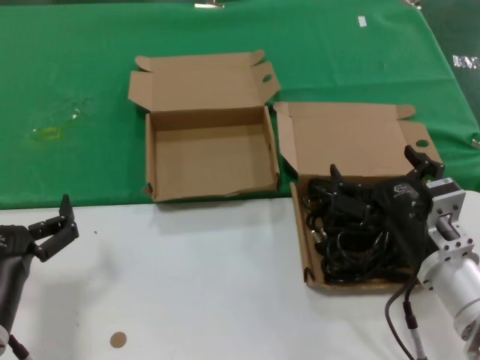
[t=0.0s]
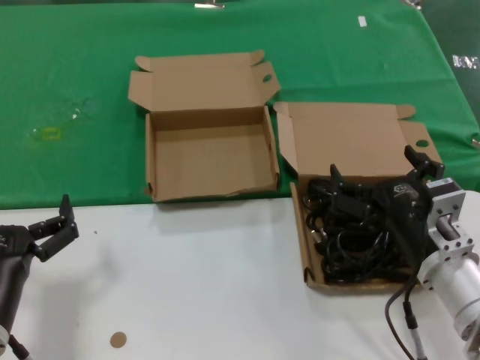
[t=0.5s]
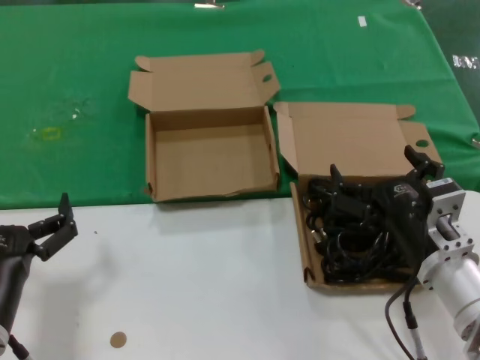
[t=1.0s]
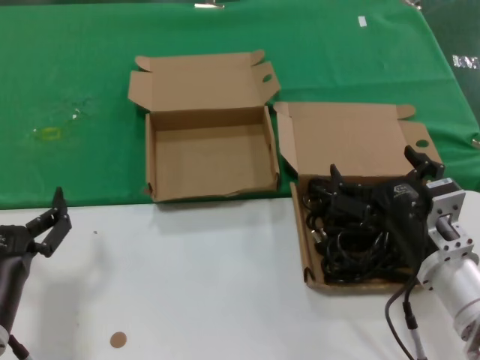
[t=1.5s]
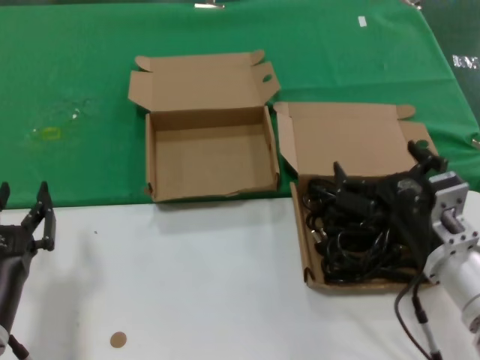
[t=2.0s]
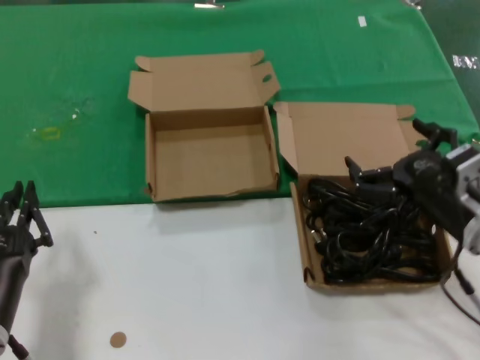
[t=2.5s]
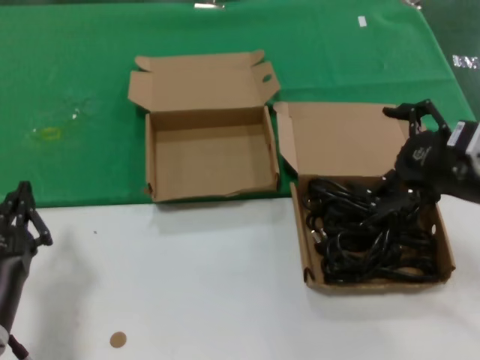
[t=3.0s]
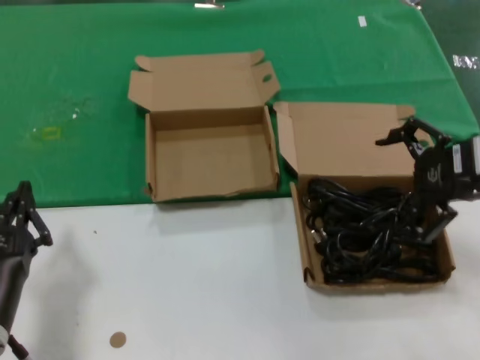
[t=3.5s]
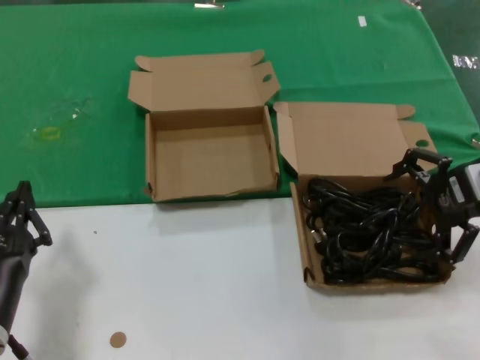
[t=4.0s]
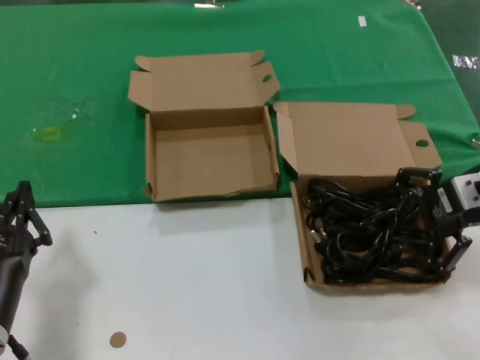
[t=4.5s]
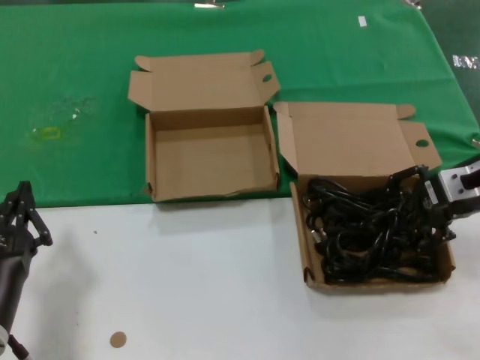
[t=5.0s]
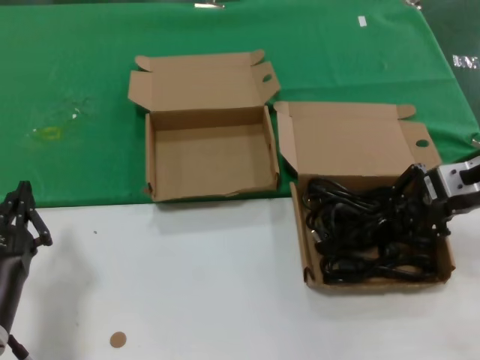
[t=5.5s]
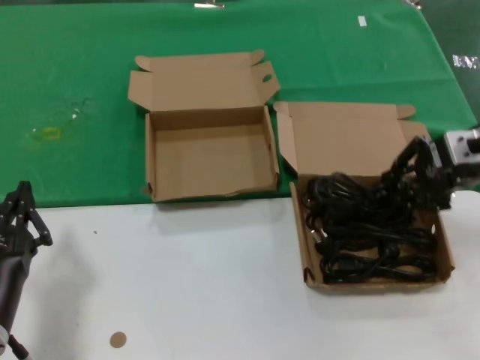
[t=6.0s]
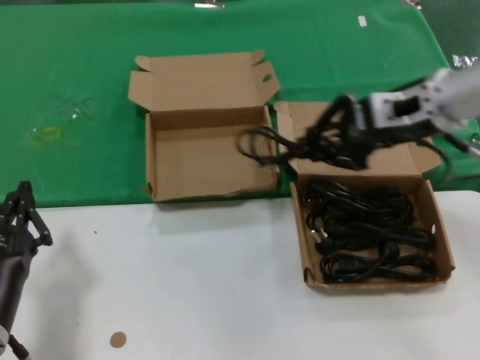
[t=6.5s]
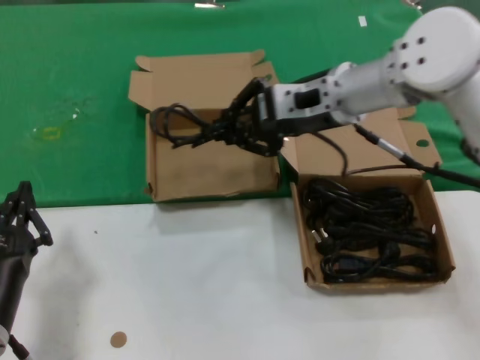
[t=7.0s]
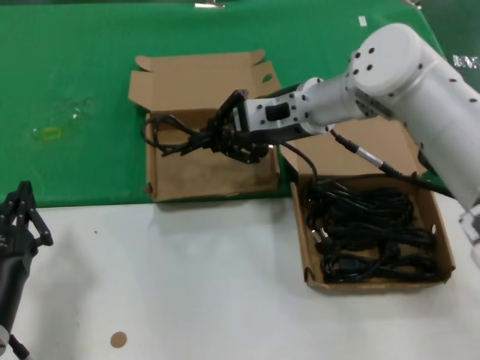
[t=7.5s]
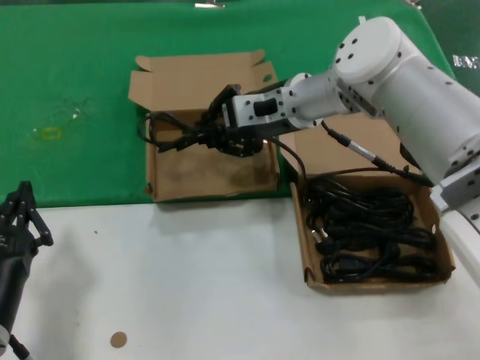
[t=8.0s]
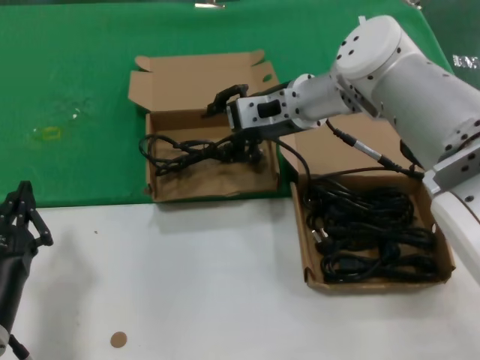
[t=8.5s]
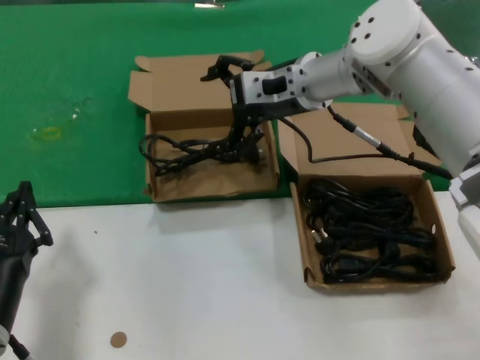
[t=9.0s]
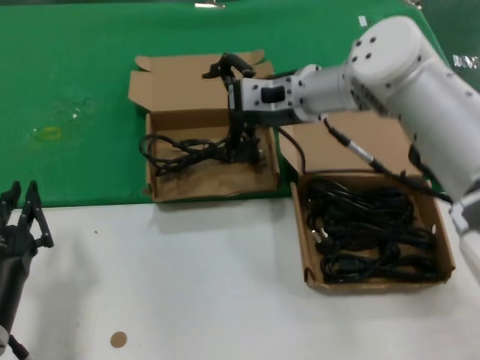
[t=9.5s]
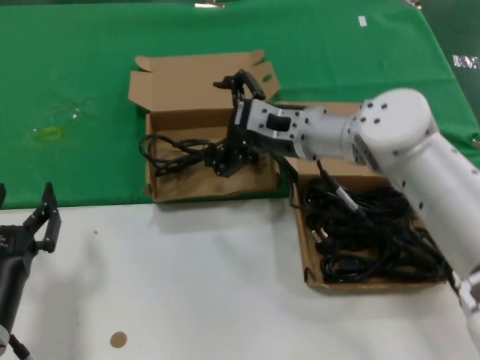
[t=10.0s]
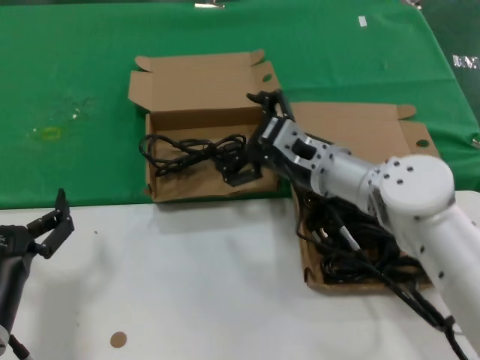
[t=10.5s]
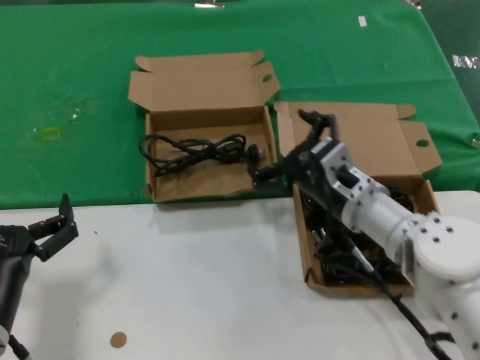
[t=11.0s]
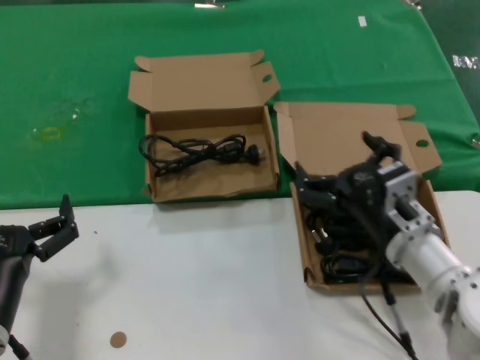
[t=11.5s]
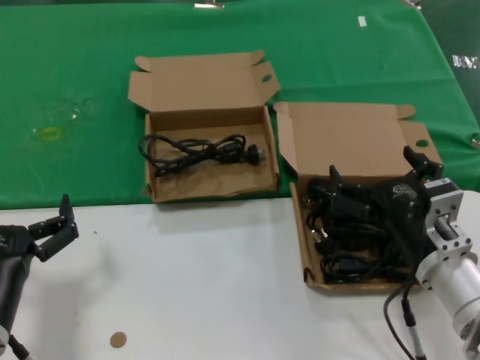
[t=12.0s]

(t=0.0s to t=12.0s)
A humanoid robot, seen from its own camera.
Task of the whole recording: take the parts from the box containing them and put them into an empty box.
Step, t=0.0s - t=5.0s: Grasp the data cable.
Step, t=5.5s - t=8.0s: Place the data cable in the another box.
t=0.0s - t=2.0s: Both hands stay put.
t=2.0s - t=4.0s: The right hand moves upward, to the right and forward, some 20 cm.
t=4.0s - t=6.0s: There are only small adjustments of the hands.
t=6.0s - t=8.0s: The right hand travels to the left and forward by roughly 25 cm.
t=8.0s - t=10.0s: The right hand is displaced downward by some 5 cm.
t=10.0s - t=12.0s: The right hand is displaced backward, downward and to the right by some 25 cm.

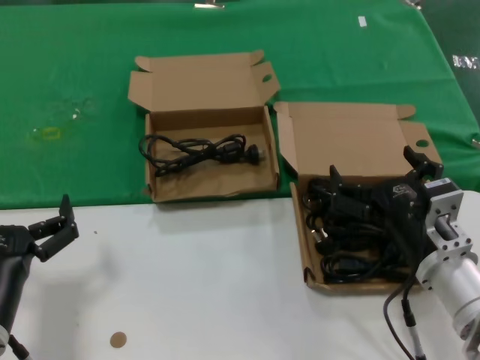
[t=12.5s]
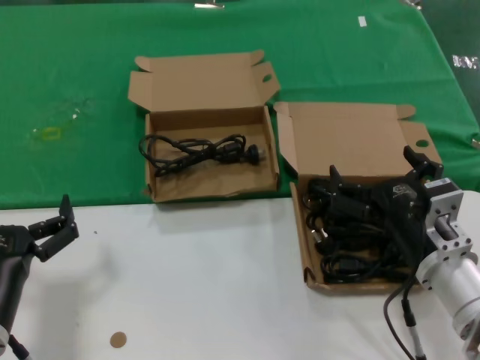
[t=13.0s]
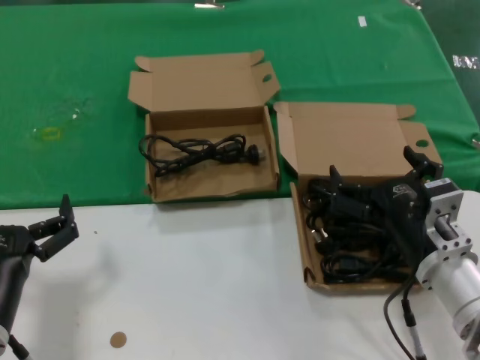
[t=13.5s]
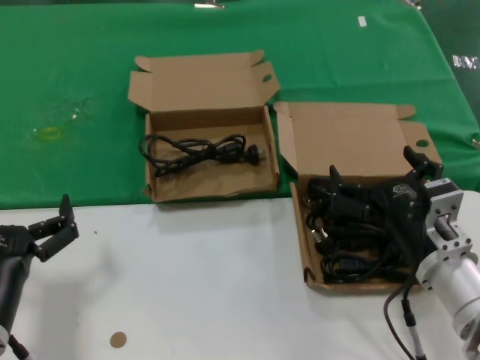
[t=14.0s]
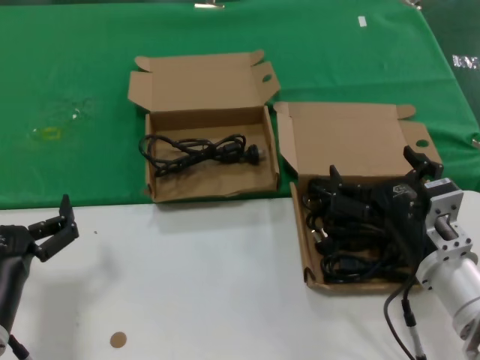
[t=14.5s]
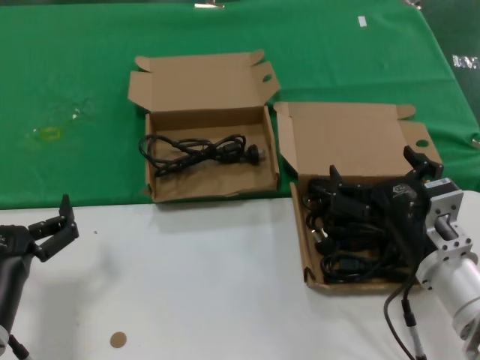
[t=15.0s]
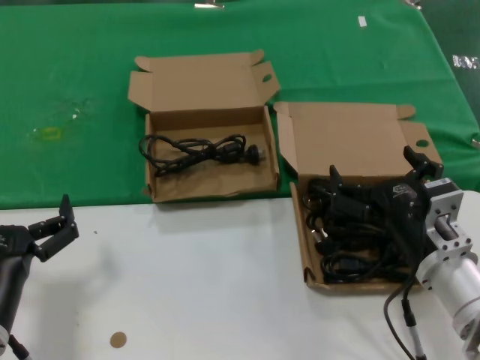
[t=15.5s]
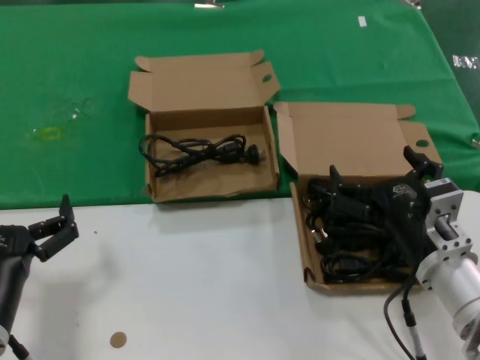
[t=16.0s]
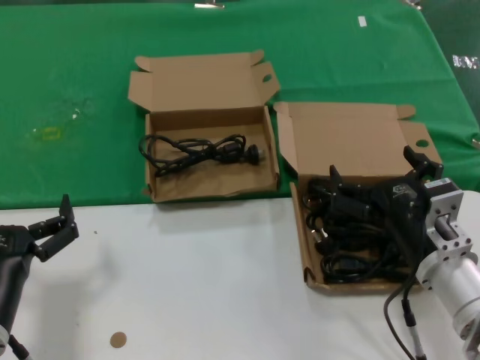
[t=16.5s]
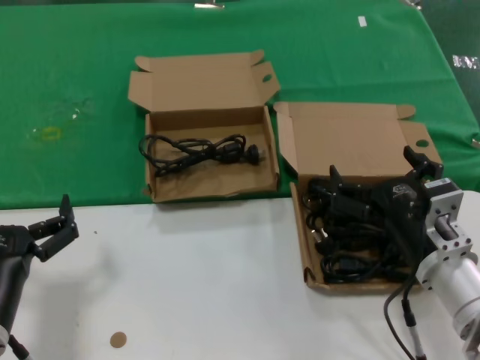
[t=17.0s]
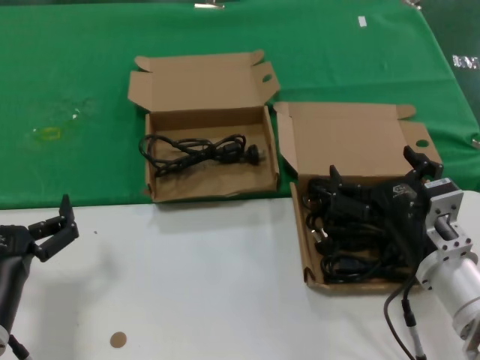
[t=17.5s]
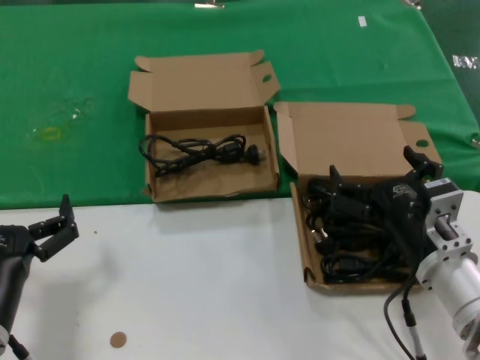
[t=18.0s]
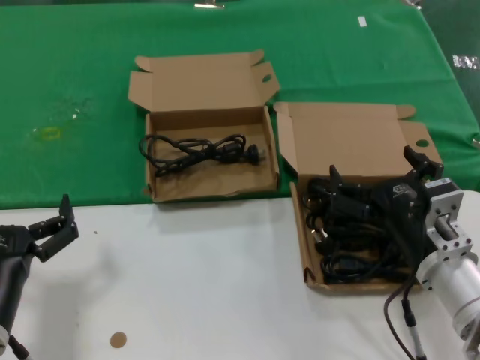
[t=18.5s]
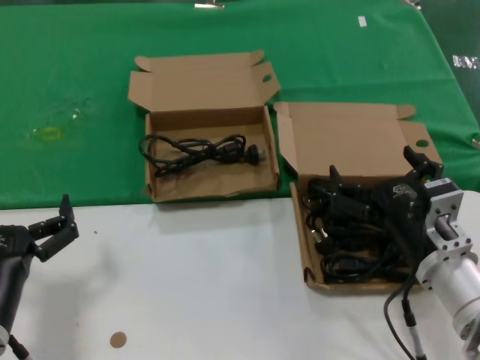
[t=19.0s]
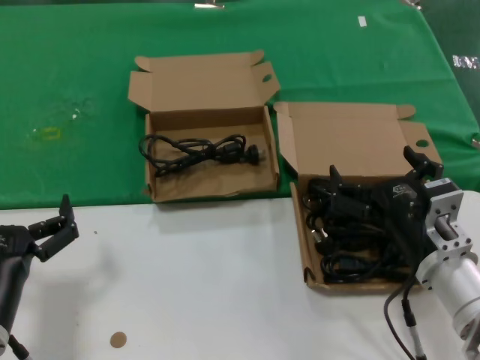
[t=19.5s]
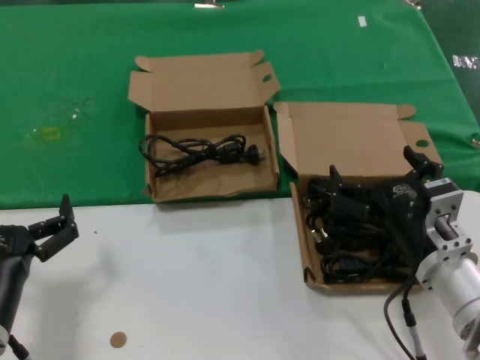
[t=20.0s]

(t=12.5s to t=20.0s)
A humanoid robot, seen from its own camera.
Task of the whole recording: take the parts from the box containing them and put them into an empty box.
t=12.5s - t=20.0s: Both hands stay about where they are.

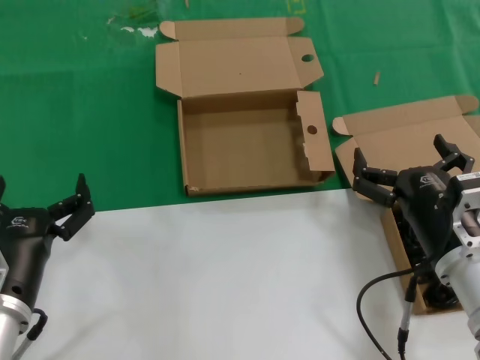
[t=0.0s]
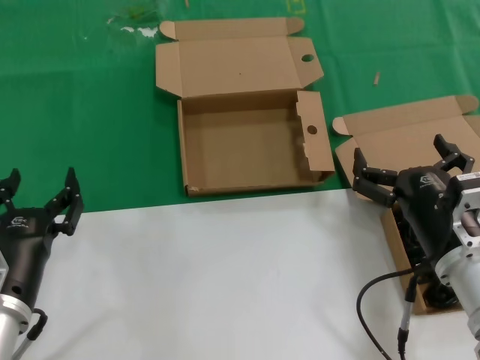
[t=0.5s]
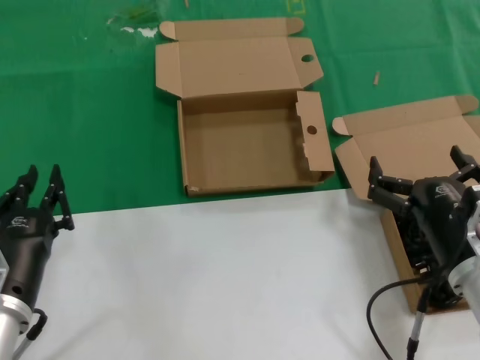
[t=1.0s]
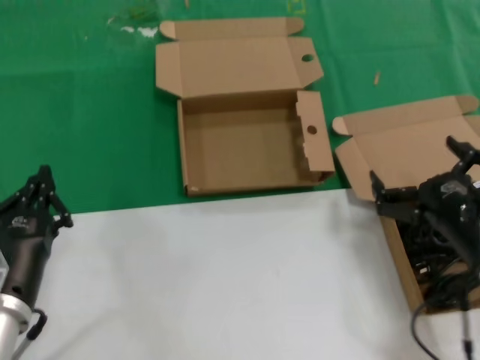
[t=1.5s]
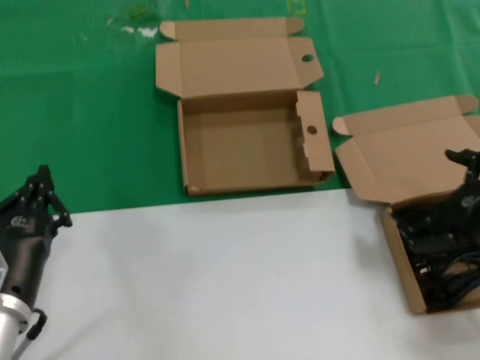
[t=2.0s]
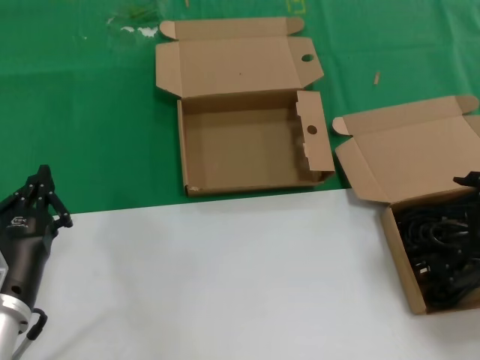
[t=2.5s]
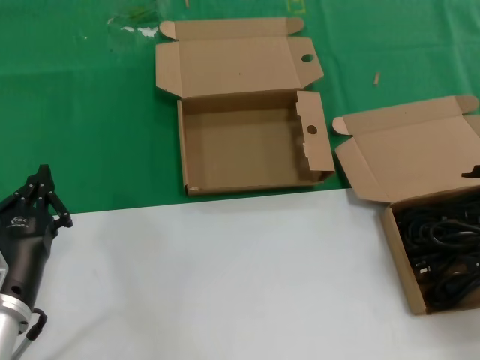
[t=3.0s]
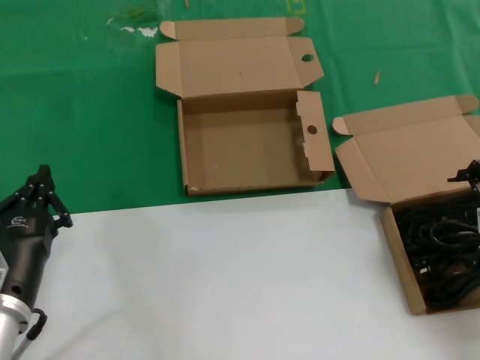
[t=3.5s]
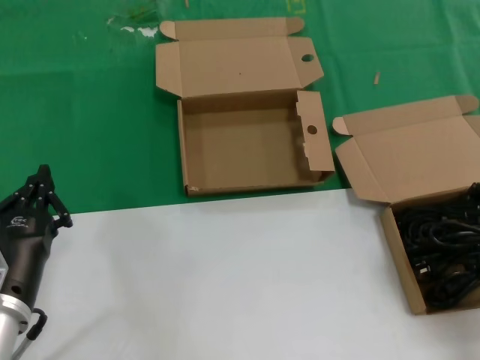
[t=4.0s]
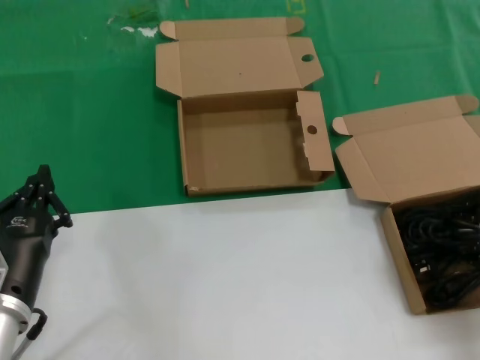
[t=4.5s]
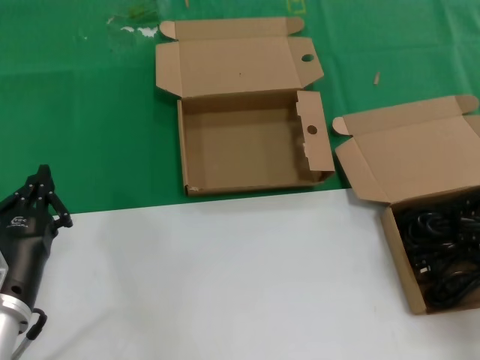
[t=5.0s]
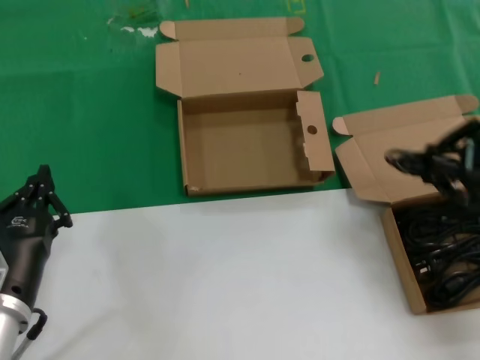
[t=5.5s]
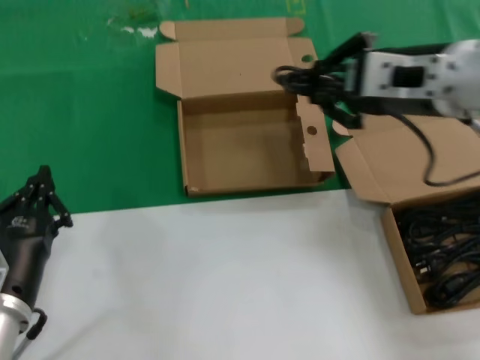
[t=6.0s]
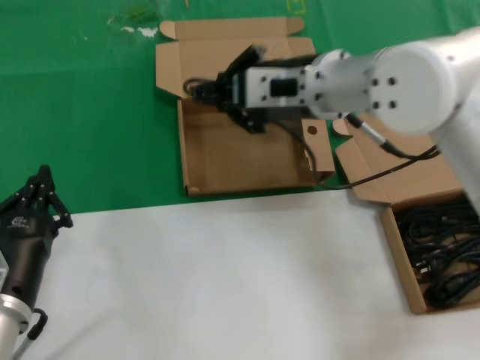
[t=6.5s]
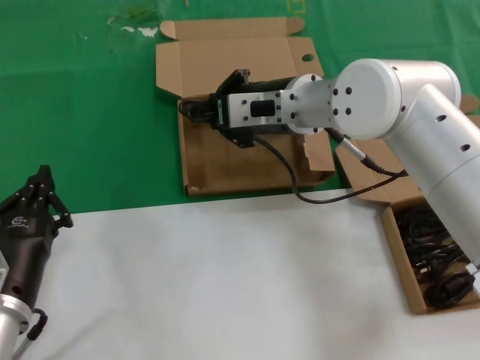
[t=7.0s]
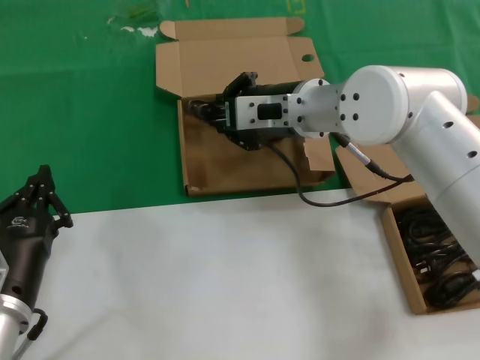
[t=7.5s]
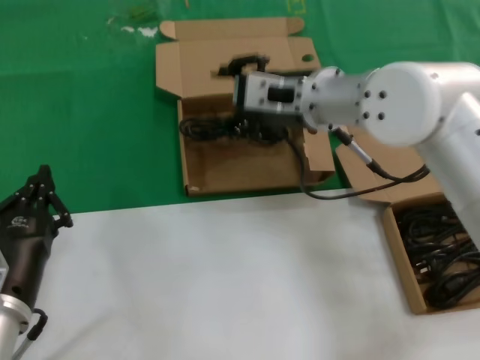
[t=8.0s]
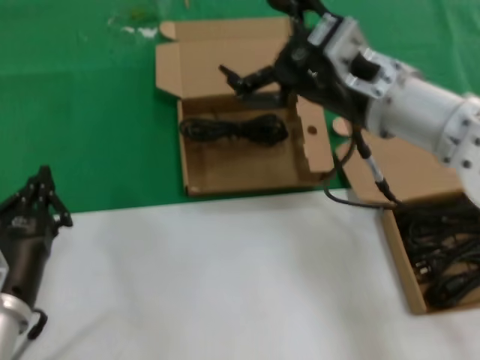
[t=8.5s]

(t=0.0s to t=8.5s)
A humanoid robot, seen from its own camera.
Task of the whole recording: take the parts from the box containing them and put them into an empty box.
Step, t=0.0s - t=4.5s: Grasp the data cable.
Step, t=5.0s - t=8.0s: Place the data cable in the another box.
t=0.0s - t=2.0s: The right hand heads to the right and upward, covering about 15 cm.
t=2.0s - t=4.0s: The right hand moves upward, approximately 5 cm.
t=4.0s - t=6.5s: The right hand moves to the left and forward, some 30 cm.
t=6.5s - t=8.5s: The right hand travels backward by about 5 cm.
